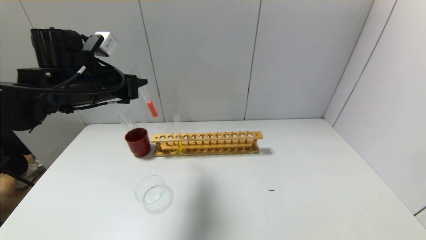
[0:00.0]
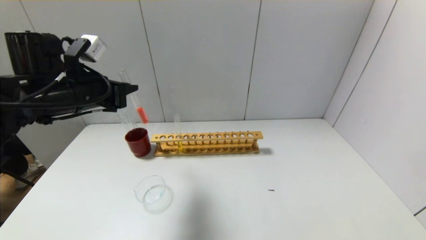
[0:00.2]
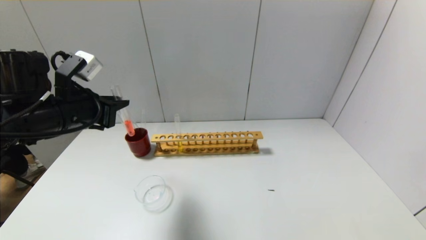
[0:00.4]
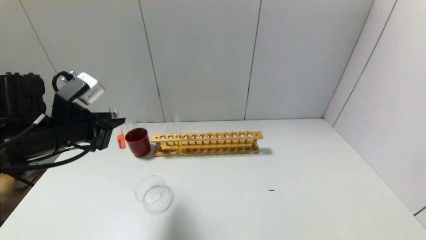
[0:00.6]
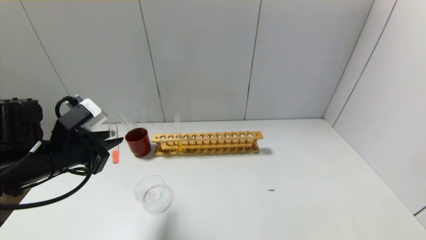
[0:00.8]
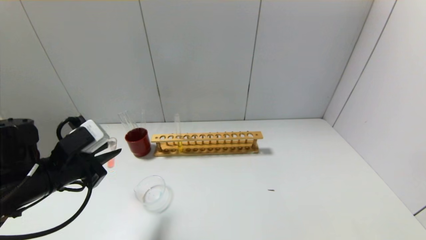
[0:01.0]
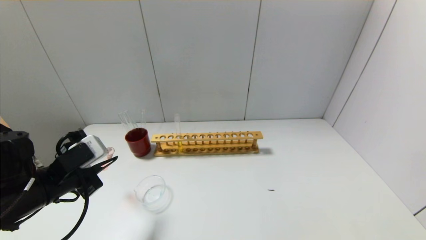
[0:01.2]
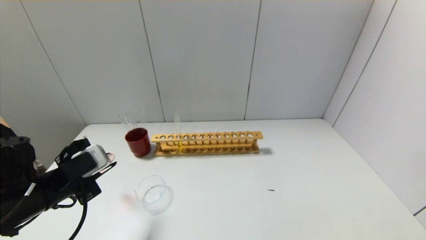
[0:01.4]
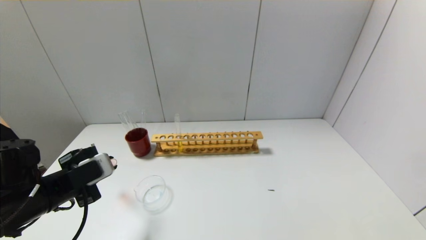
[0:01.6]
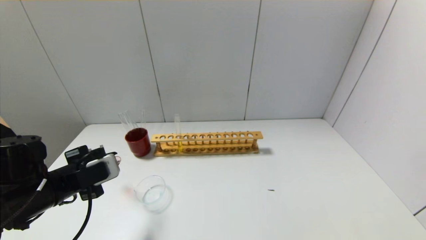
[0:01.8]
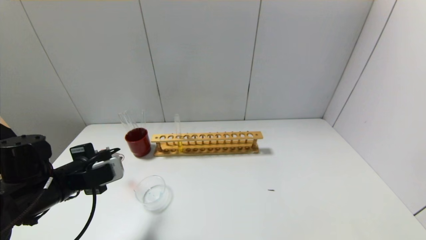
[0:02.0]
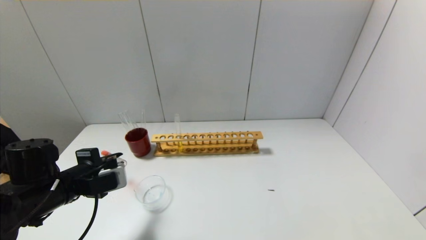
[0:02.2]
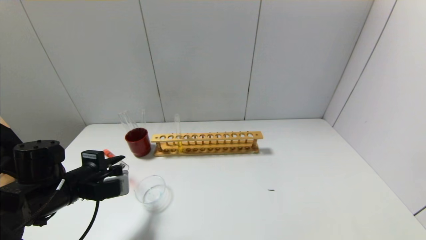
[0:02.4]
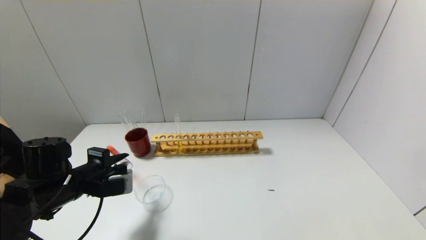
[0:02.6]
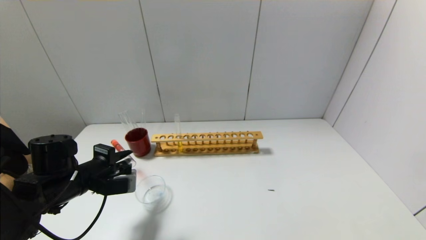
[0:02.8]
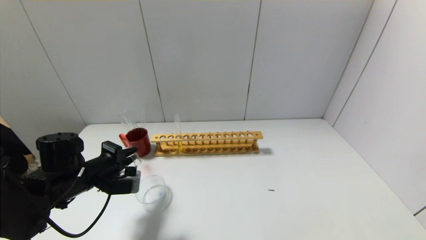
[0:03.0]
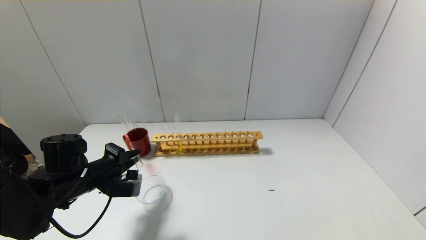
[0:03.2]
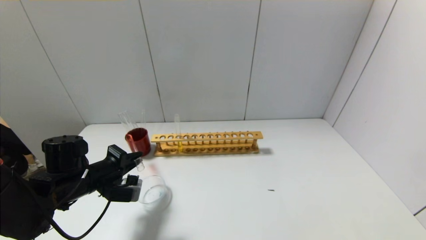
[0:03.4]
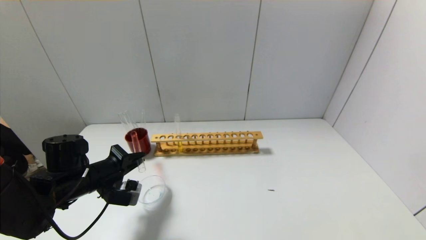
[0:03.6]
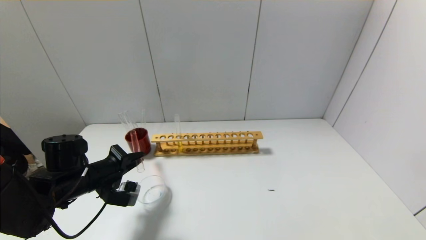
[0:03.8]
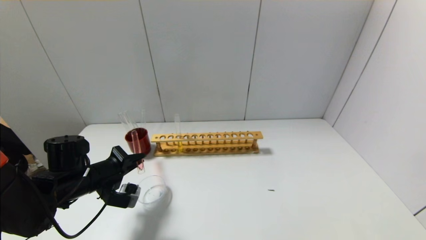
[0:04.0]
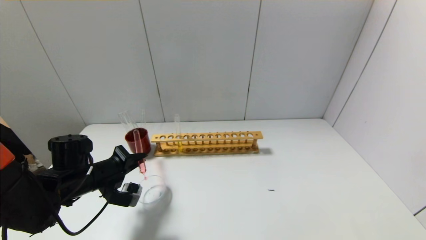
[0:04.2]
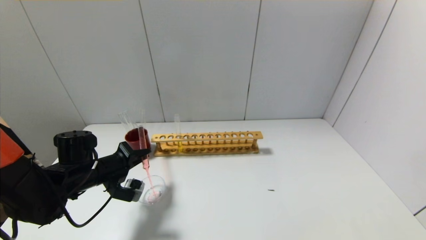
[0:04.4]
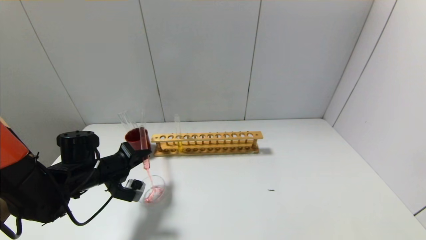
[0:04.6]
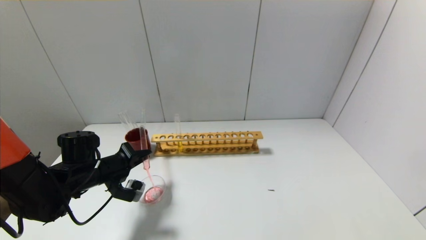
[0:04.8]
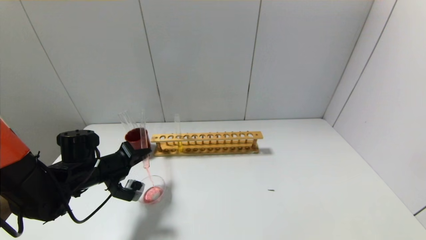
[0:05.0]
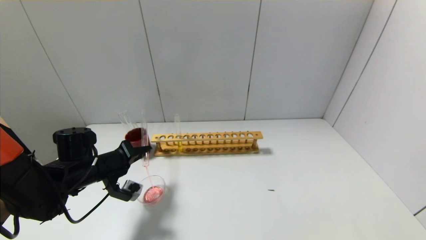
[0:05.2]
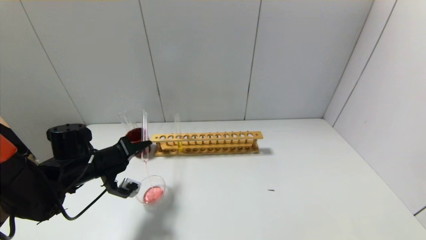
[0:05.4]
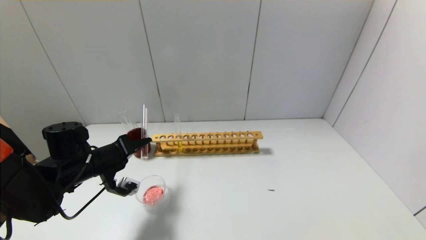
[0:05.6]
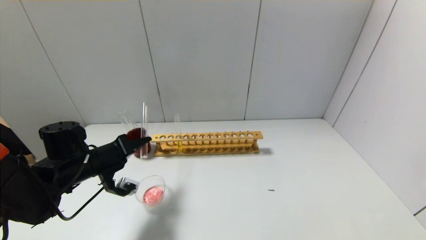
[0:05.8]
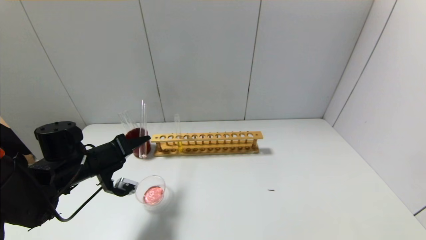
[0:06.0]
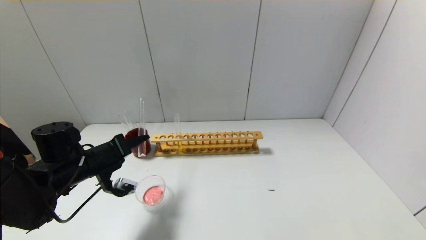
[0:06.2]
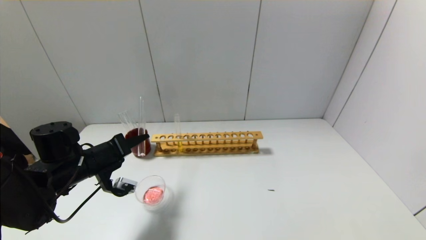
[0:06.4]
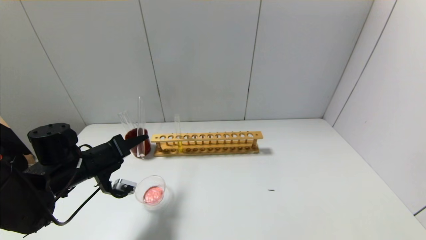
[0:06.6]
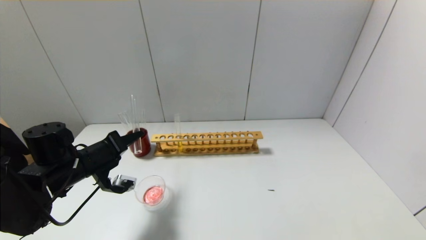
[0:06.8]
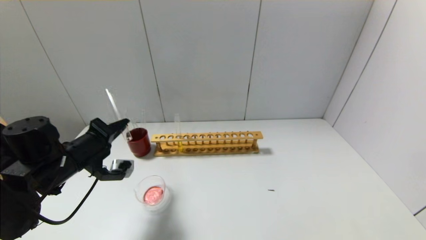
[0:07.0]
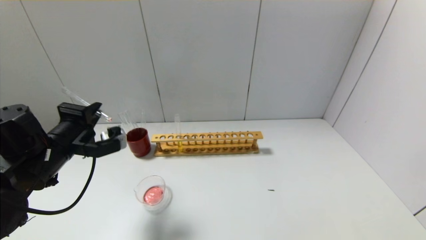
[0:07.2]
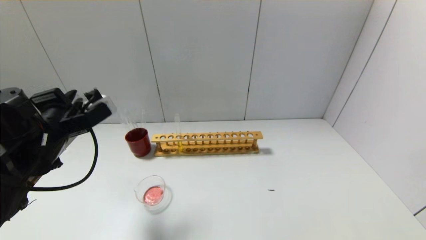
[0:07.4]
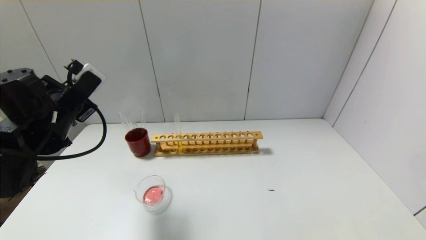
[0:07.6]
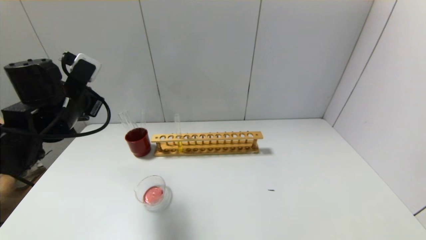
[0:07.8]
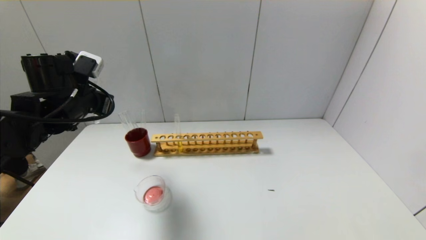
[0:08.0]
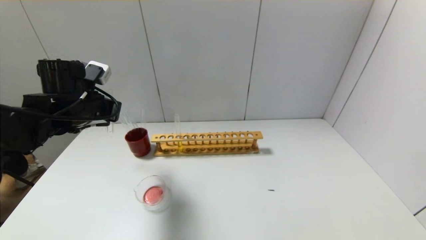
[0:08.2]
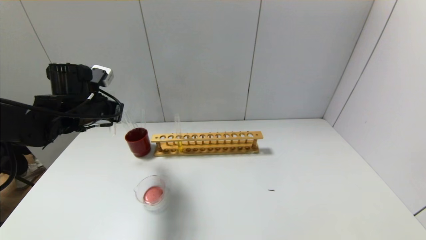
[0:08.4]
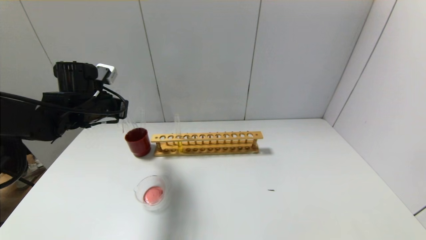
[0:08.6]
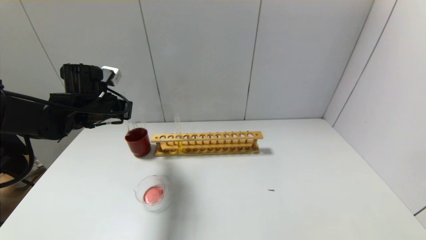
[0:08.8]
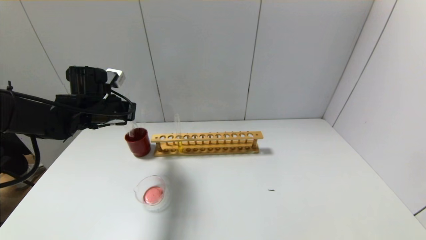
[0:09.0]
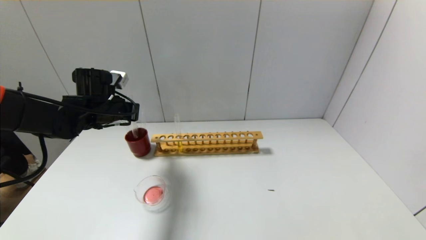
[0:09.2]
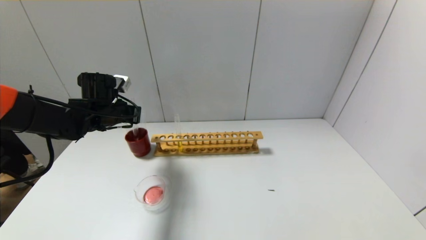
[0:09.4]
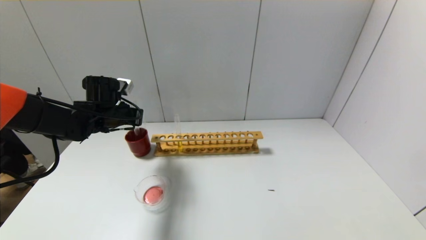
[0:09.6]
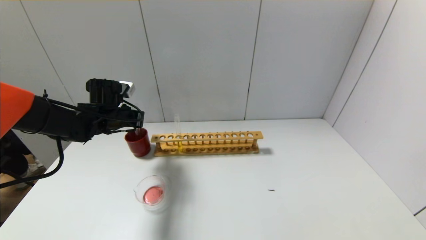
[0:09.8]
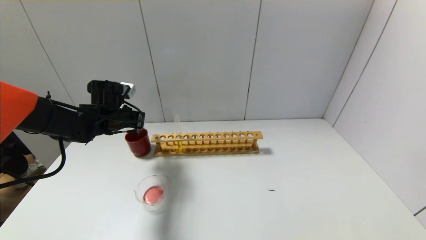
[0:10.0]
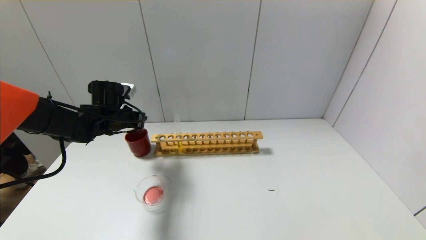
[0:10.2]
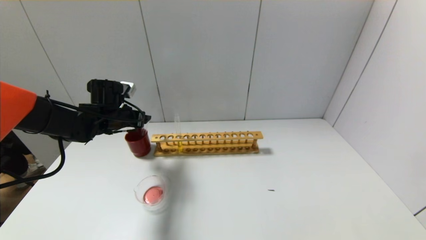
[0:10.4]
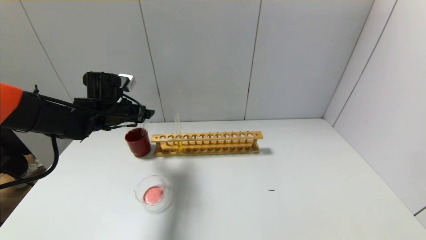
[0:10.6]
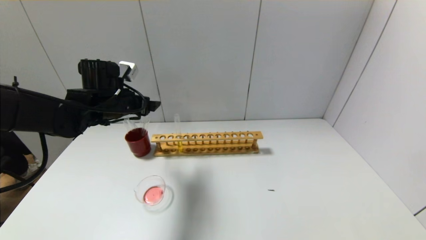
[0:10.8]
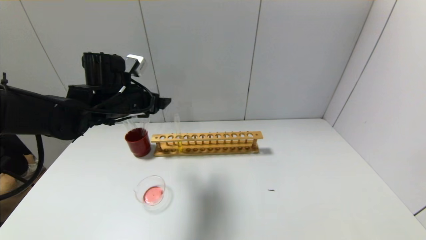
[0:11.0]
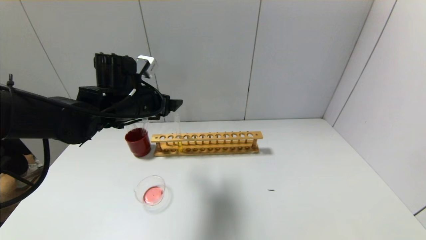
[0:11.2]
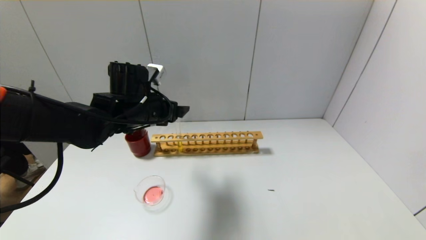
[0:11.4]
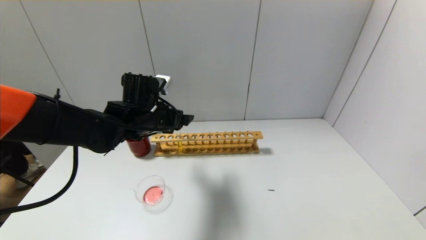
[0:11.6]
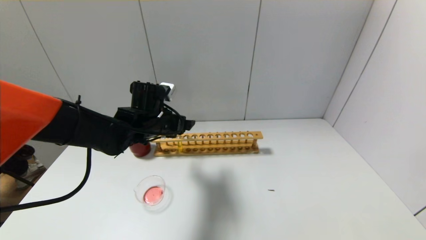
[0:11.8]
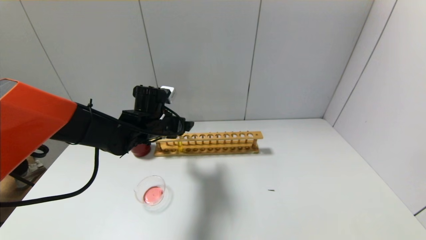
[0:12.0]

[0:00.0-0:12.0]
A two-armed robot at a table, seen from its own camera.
Step, 0.0 to 7.0 s: Pour the red reagent into the graduated cylinder with the left gripper.
Step, 7.2 to 10.0 s: Place the test tube into the brown cup with the left gripper.
0.0 to 1.6 s: The left gripper travels downward and backward by about 20 cm.
1.6 to 3.0 s: The left gripper travels forward by roughly 5 cm.
6.0 to 7.6 s: The left gripper shifts some 10 cm upward.
7.6 to 9.0 s: The left gripper shifts some 10 cm forward.
9.0 to 10.4 s: The left gripper opens.
10.4 to 12.0 s: The left gripper goes approximately 10 cm to the right.

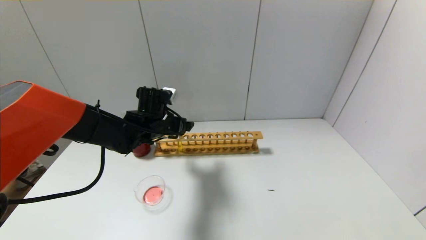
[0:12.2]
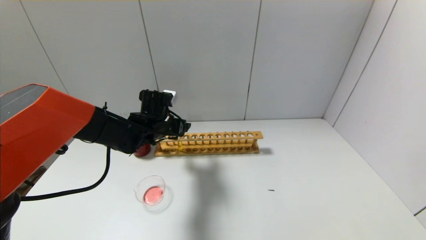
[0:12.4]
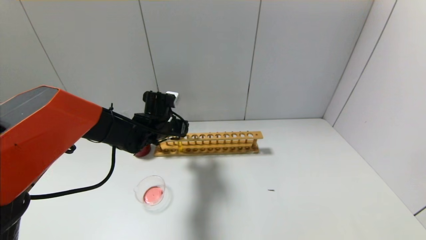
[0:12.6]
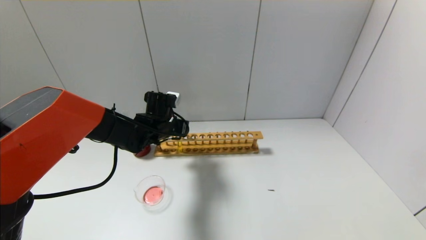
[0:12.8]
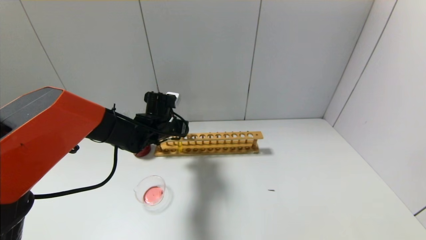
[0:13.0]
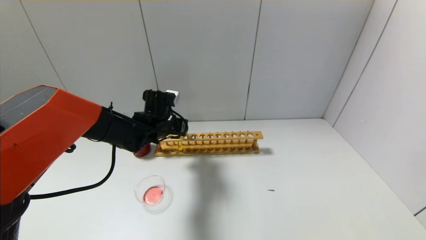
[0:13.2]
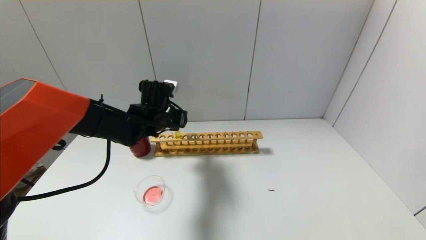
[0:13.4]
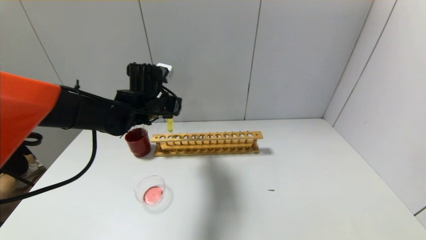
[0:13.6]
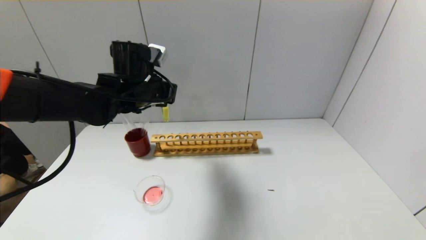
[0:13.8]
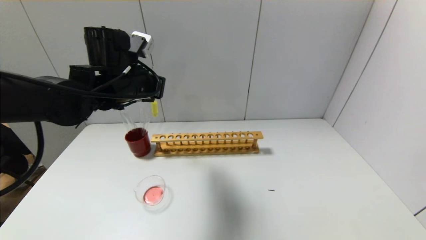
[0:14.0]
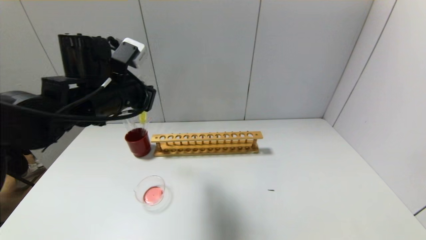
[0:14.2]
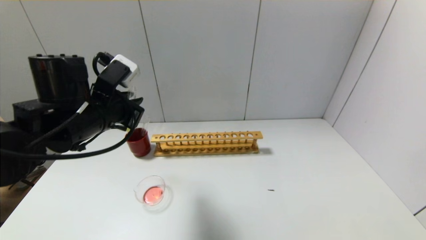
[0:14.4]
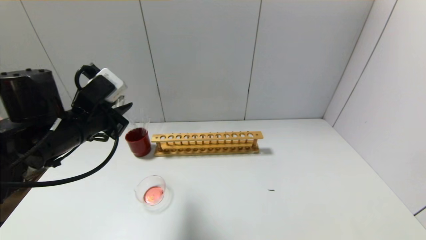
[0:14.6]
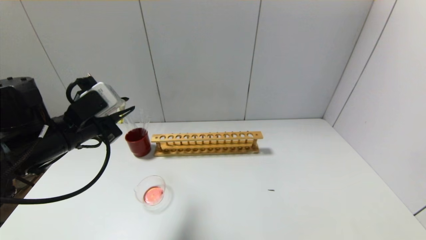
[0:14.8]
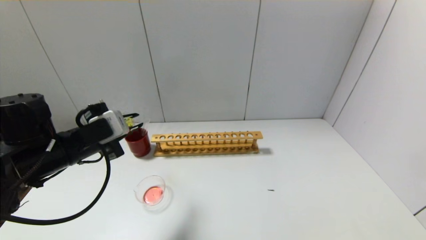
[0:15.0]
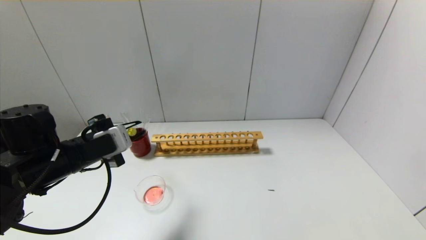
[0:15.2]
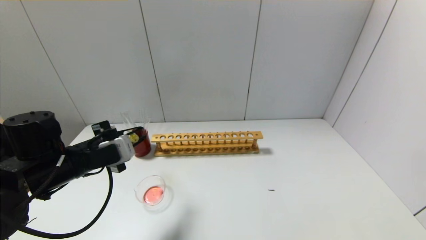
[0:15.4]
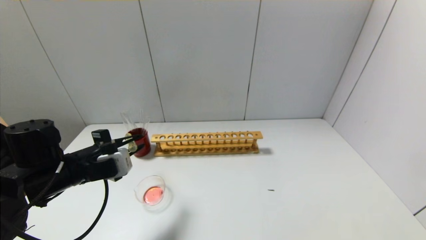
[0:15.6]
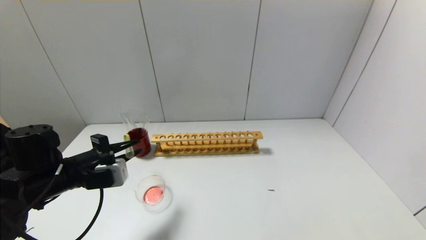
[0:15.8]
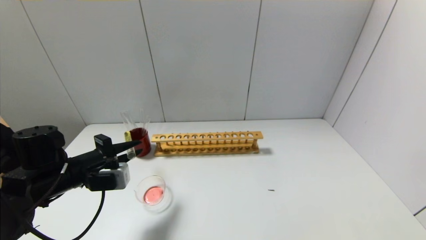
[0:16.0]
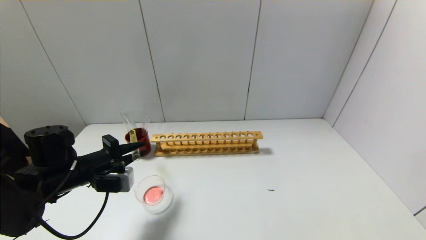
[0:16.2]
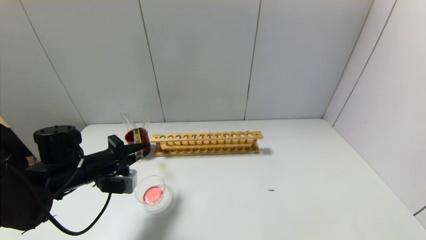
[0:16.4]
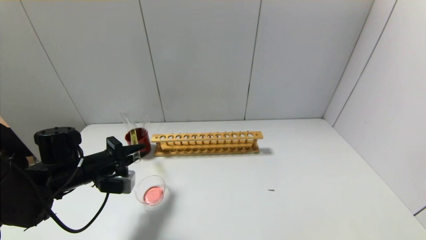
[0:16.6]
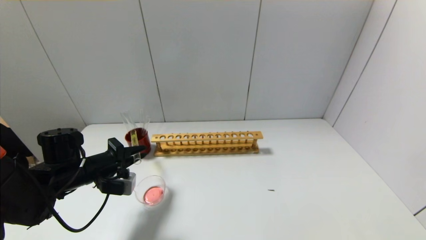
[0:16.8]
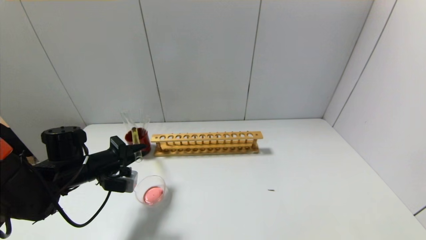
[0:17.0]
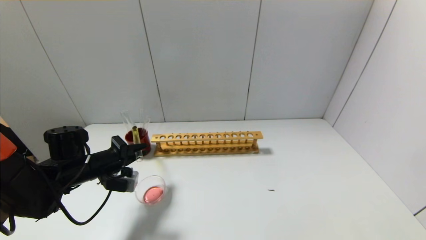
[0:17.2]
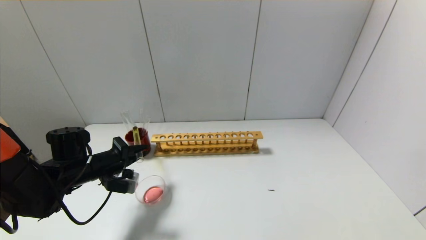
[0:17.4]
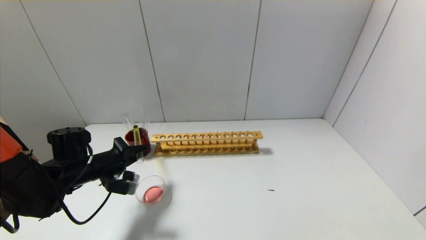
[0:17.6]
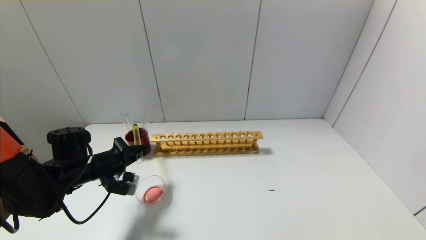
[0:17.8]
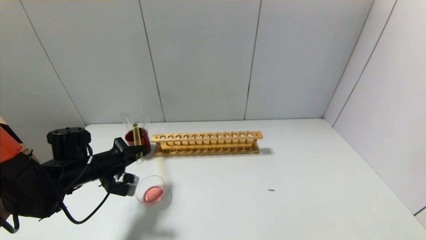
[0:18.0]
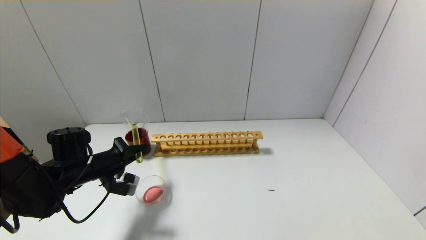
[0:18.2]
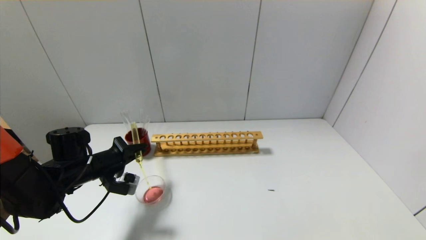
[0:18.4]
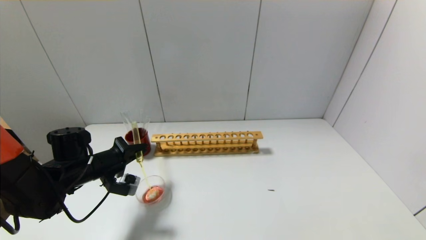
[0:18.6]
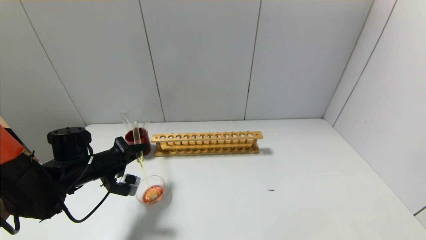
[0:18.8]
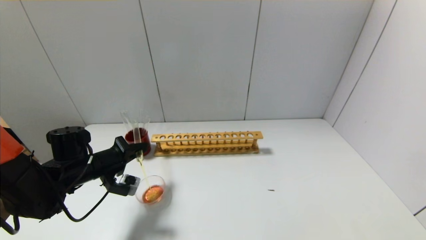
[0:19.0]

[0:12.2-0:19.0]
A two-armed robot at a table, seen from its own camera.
12.2 to 13.6 s: The left gripper goes roughly 5 cm upward, and closes up.
13.6 to 15.0 s: The left gripper travels backward and to the left by approximately 20 cm.
15.0 to 16.2 s: The left gripper travels downward by roughly 5 cm.
16.2 to 17.6 s: The grippers make only small movements.
17.6 to 19.0 s: The grippers make only small movements.
